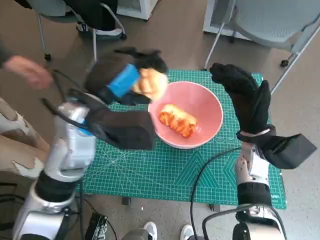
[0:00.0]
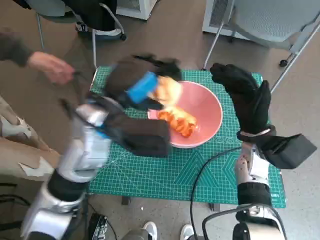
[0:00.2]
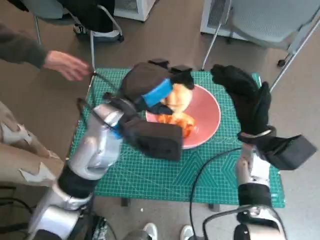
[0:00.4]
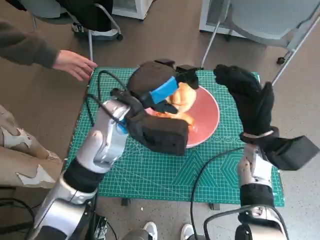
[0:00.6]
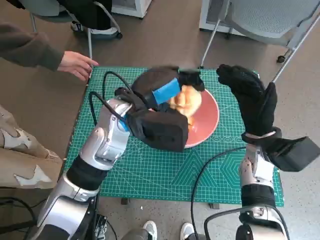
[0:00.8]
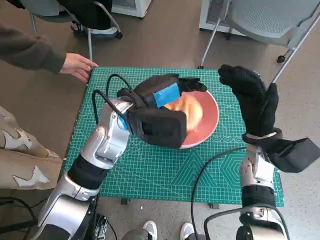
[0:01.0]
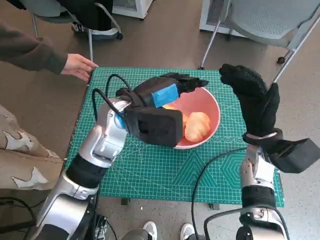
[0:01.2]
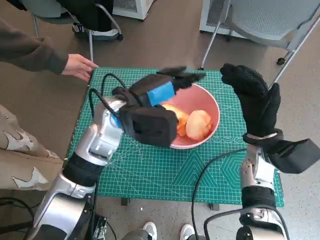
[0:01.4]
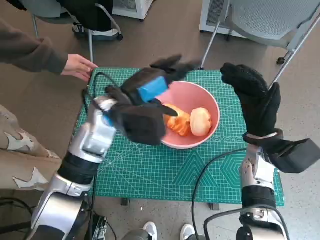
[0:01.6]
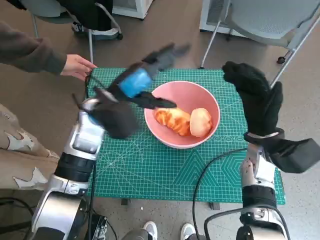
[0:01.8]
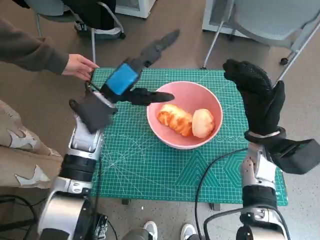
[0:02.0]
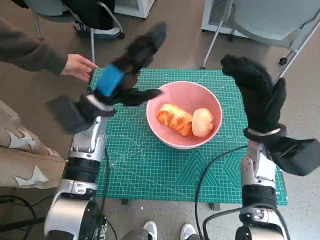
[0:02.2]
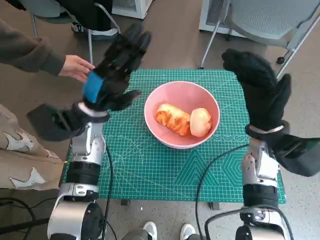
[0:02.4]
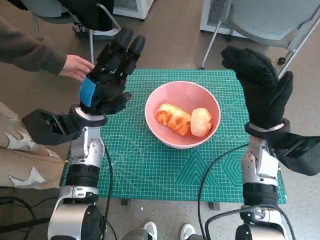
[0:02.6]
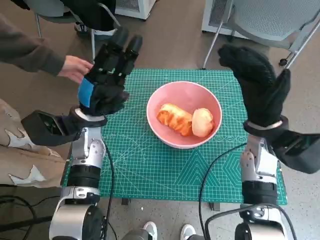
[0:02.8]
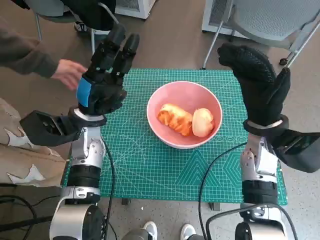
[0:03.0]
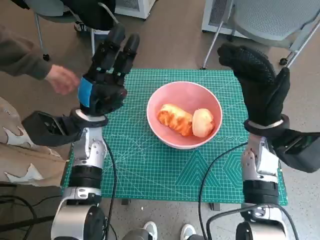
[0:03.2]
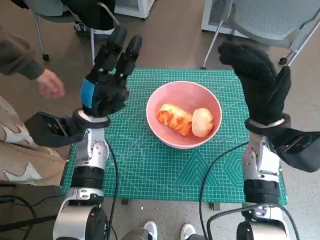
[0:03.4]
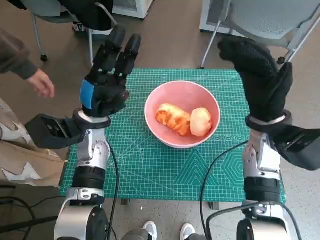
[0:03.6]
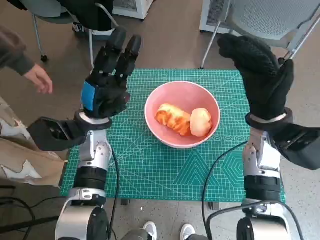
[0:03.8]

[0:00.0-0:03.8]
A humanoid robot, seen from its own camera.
0:00.0 to 0:01.2: The left hand moves roughly 5 cm.
0:01.2 to 0:02.6: The left hand goes approximately 10 cm to the left and downward.

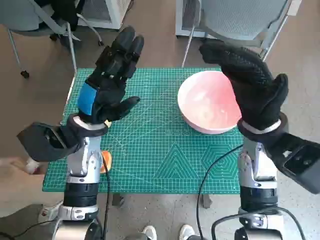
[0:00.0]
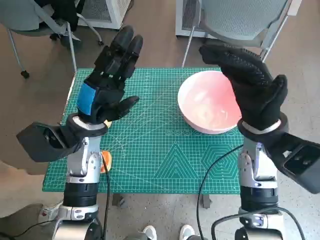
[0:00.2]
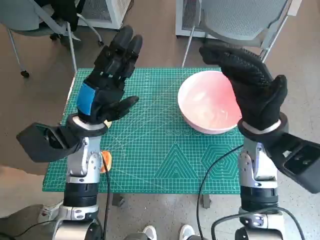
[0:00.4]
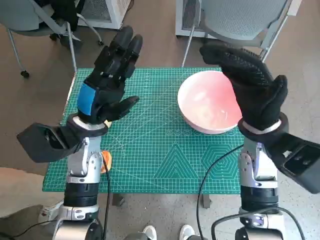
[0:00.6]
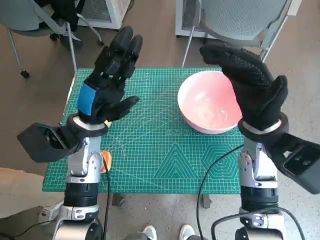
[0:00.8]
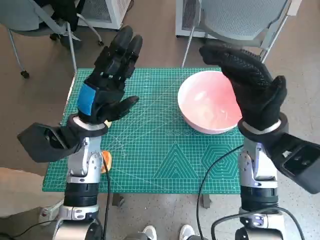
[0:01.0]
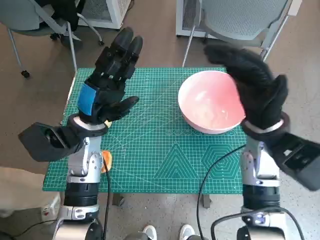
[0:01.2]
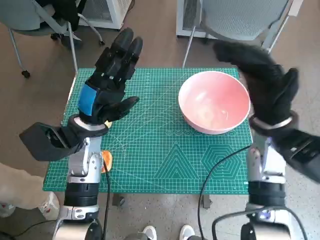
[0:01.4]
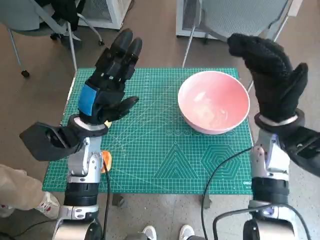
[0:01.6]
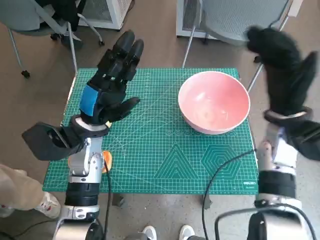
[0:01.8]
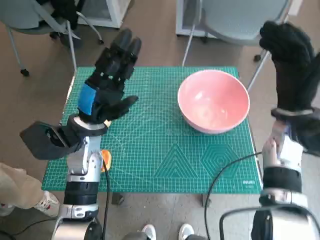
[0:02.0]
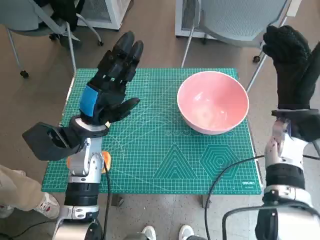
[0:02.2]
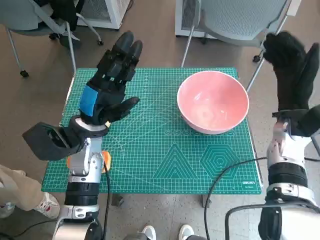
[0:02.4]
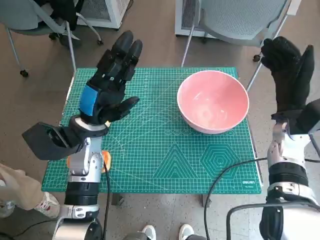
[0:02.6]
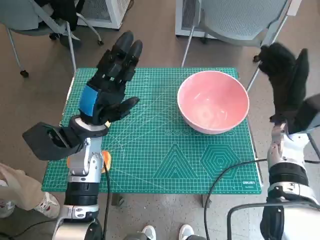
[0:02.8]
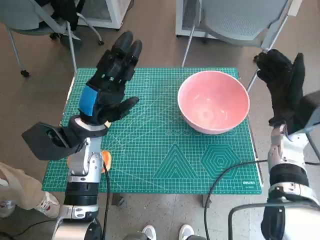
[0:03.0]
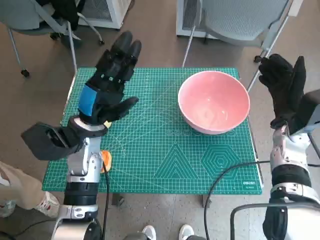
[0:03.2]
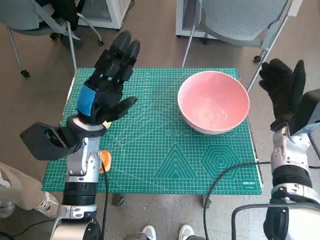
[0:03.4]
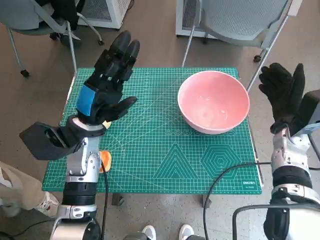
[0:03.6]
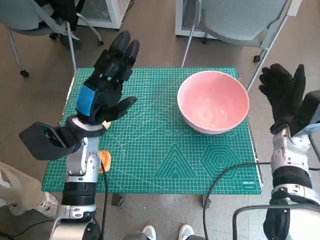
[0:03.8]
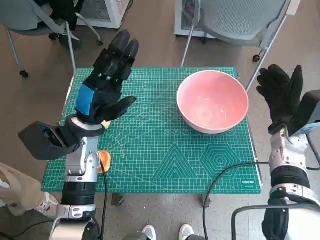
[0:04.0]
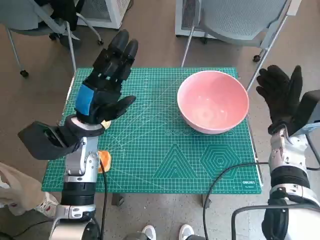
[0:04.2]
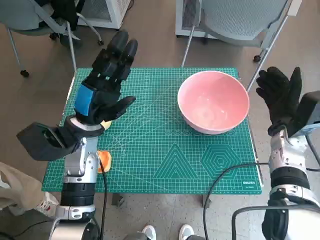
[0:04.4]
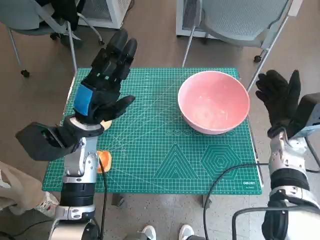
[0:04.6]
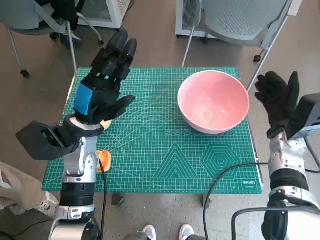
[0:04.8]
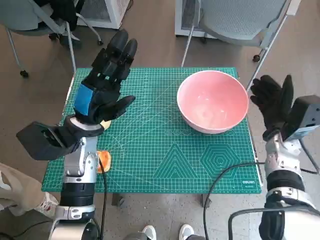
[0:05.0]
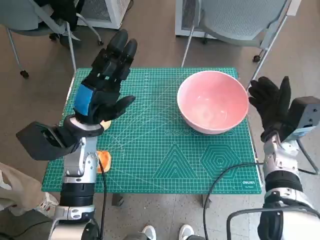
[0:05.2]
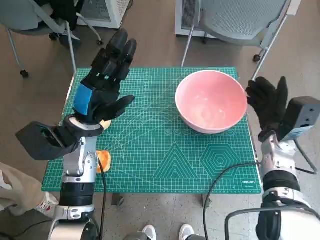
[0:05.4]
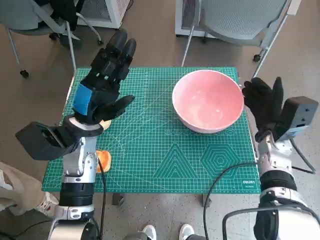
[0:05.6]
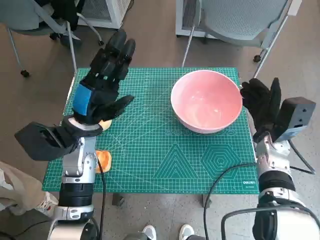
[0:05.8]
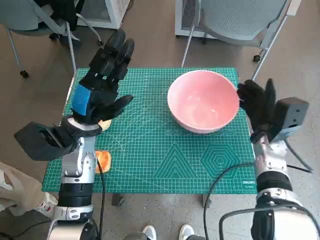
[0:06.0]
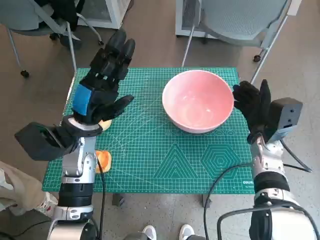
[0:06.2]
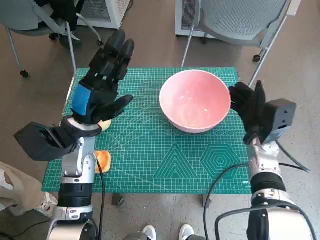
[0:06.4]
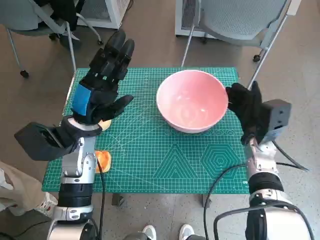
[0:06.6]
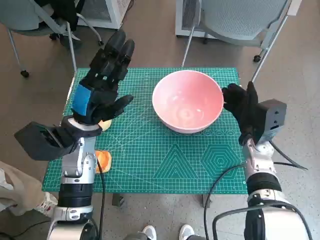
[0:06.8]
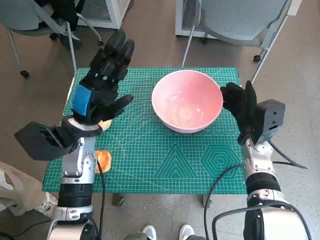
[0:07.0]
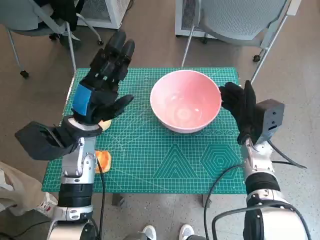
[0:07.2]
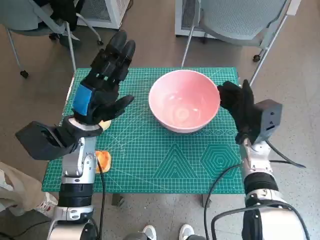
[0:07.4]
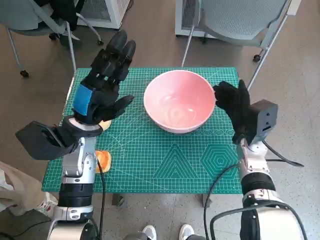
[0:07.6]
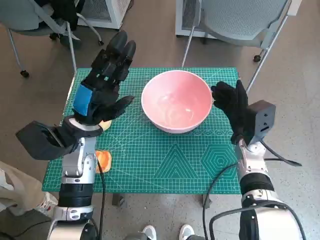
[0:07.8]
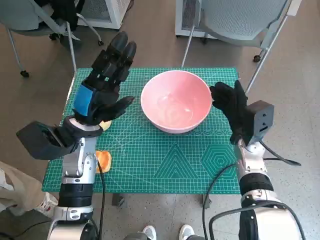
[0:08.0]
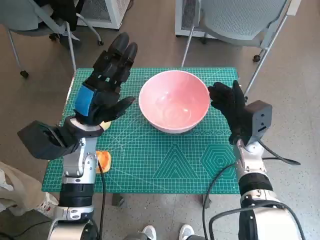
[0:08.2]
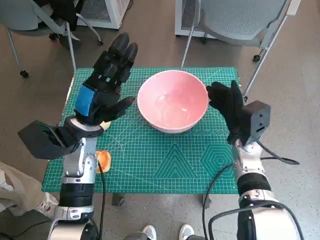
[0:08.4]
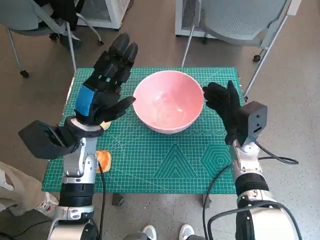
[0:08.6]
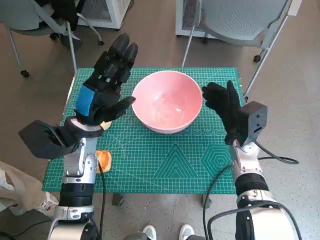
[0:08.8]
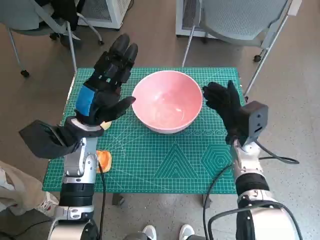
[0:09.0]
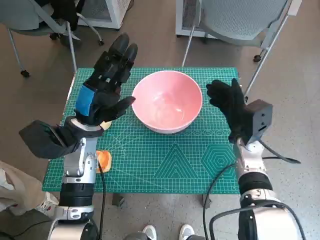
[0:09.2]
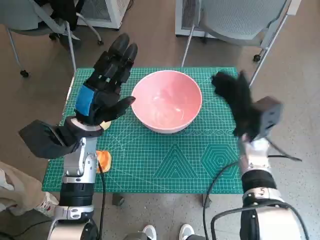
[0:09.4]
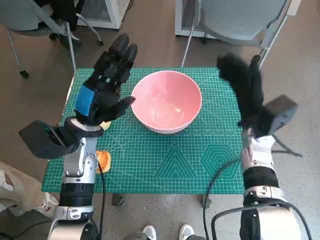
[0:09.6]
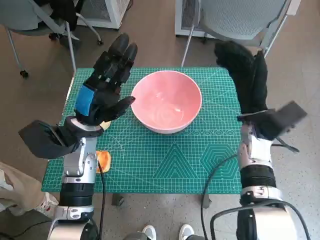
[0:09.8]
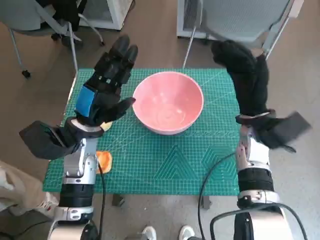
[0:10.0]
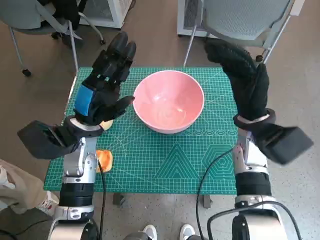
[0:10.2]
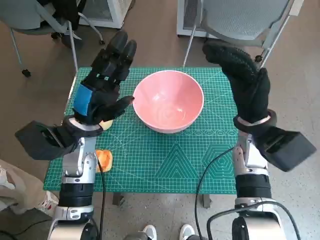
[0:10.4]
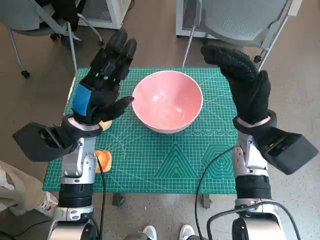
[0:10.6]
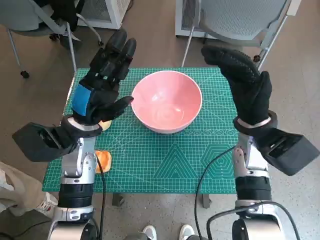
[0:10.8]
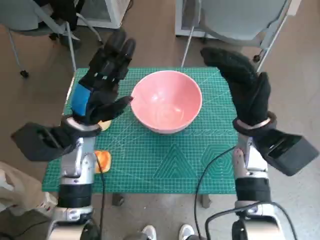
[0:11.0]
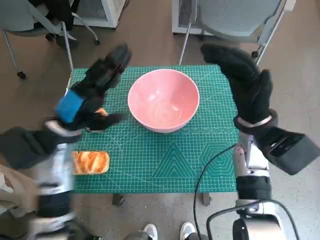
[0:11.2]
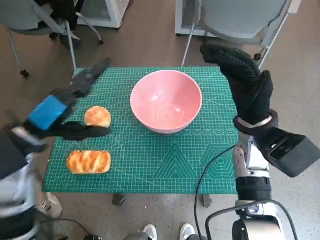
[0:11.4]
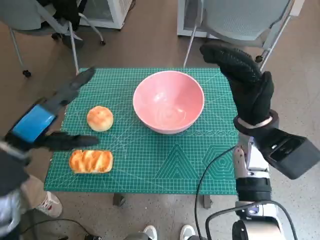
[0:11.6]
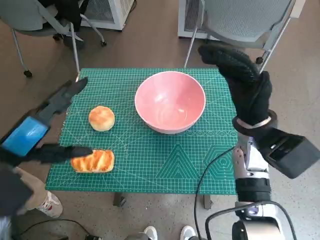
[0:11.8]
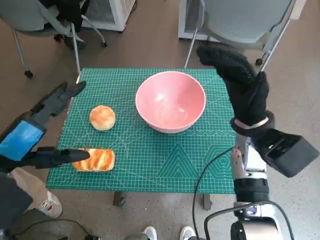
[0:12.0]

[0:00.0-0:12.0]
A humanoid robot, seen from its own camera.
Step, 0:00.0 to 0:09.2: Move the pink bowl to the center of table with right hand.
0:01.6 to 0:03.0: The right hand is displaced to the right and downward by some 5 cm.
0:03.0 to 0:04.4: The hands move only a little.
0:04.4 to 0:06.0: The hands move only a little.
0:06.0 to 0:09.0: The hands make only small movements.
0:09.0 to 0:10.4: The right hand is displaced upward by some 10 cm.
0:10.4 to 0:12.0: The left hand travels backward, upward and to the left by roughly 15 cm.

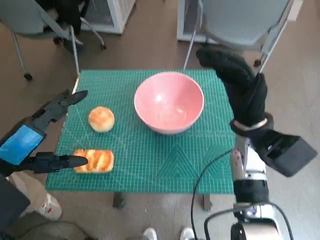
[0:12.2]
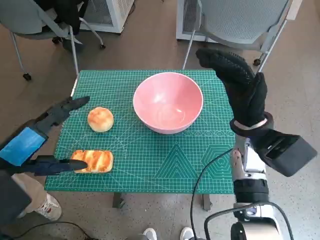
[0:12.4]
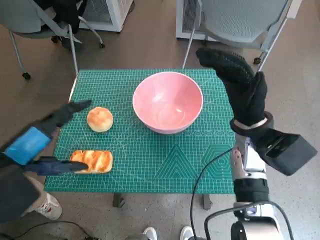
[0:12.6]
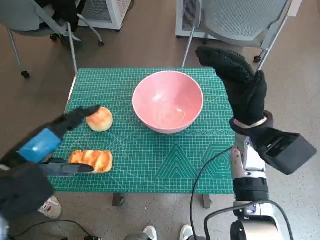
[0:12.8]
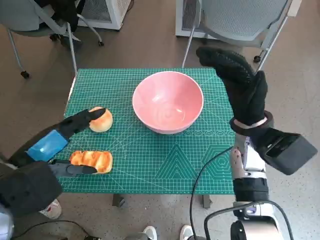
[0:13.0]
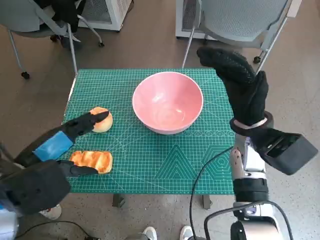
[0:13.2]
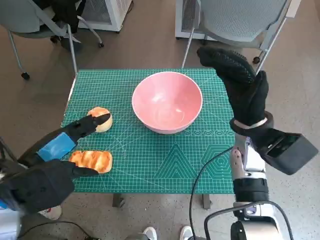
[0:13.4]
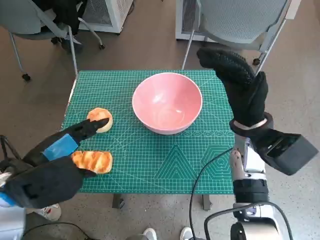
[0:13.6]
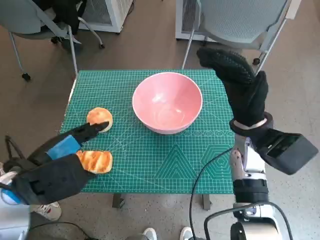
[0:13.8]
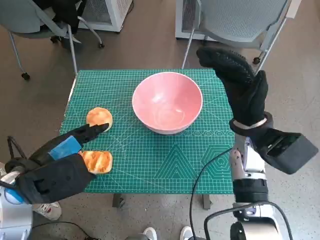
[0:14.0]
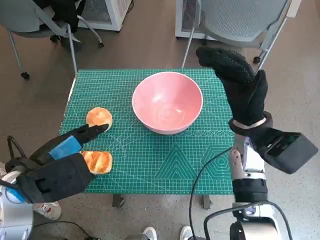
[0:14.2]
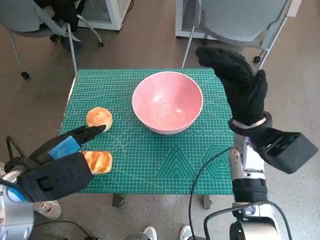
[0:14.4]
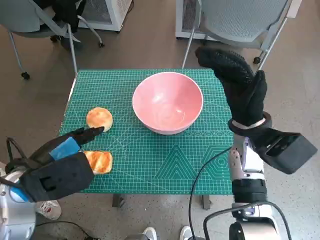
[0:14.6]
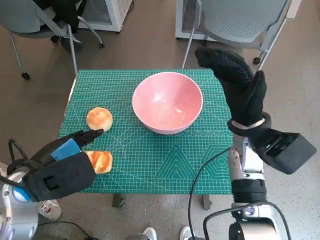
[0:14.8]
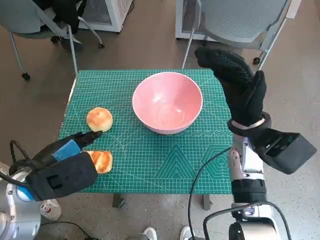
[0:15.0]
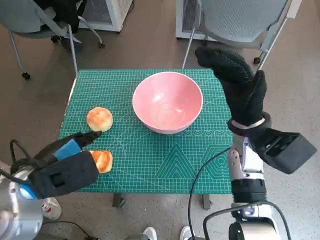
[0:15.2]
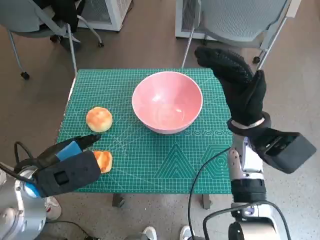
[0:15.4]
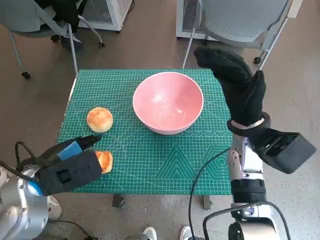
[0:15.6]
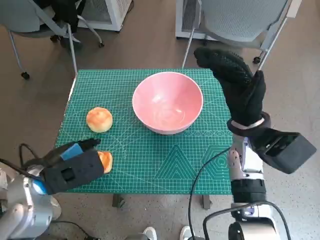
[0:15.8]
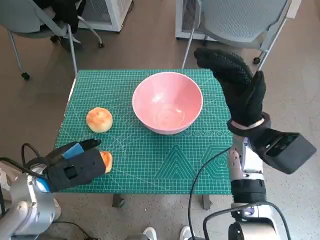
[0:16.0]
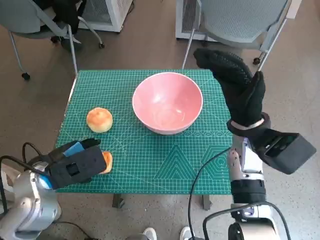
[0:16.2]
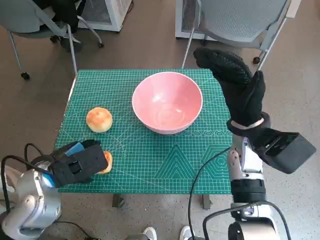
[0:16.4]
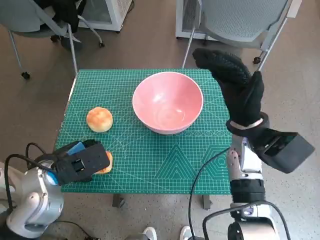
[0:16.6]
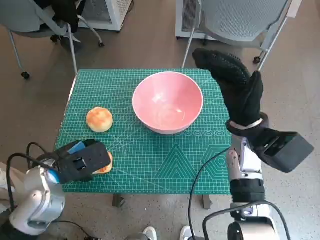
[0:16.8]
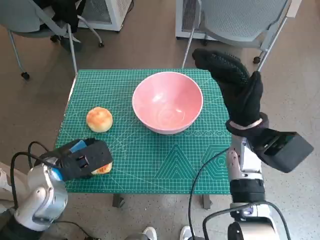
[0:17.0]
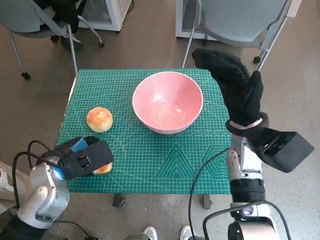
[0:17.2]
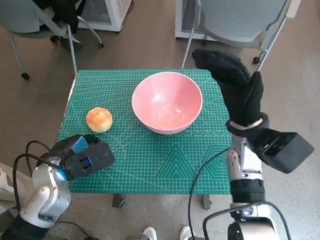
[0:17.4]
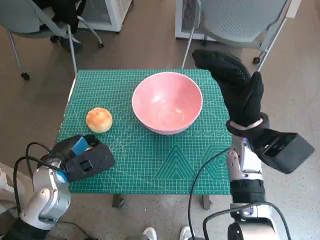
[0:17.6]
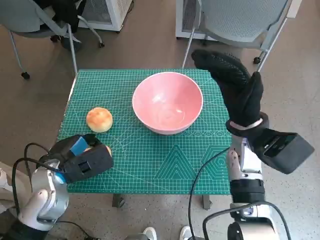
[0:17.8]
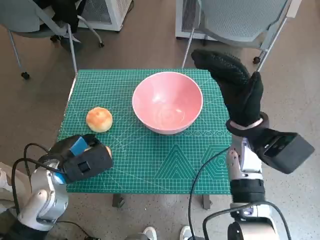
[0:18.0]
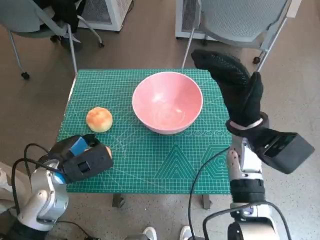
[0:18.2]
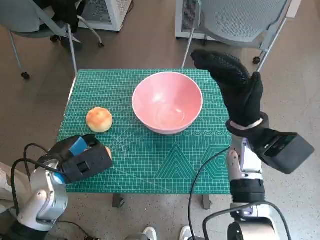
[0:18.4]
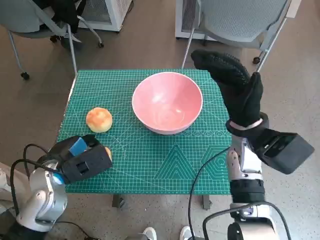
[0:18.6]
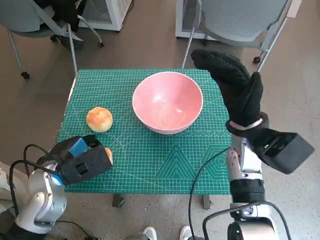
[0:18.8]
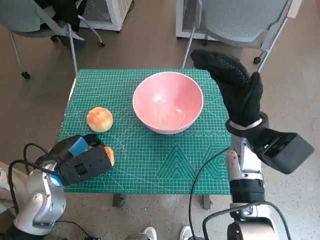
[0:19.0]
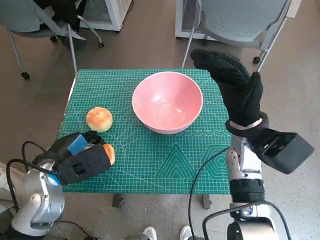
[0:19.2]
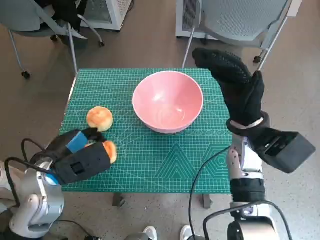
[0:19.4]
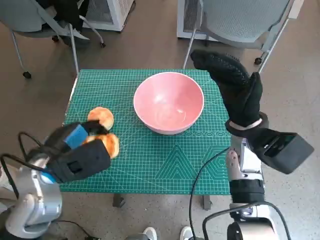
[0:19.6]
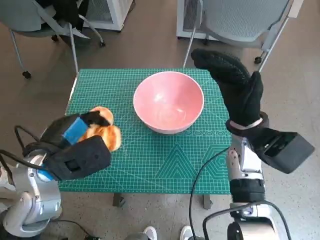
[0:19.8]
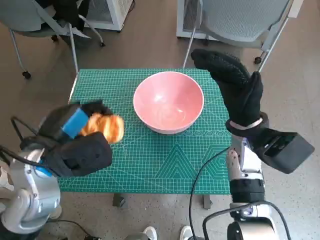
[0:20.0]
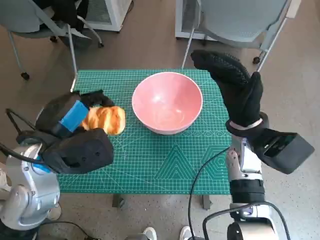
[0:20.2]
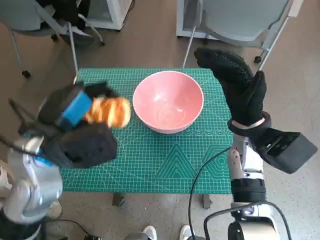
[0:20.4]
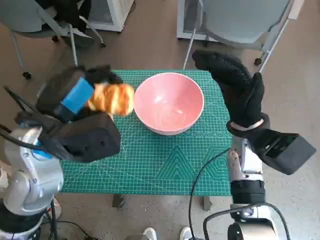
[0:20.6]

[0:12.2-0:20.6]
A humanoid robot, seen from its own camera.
Step, 0:12.2 to 0:17.8: Grasp the long bread with left hand.
0:13.6 to 0:15.0: The hands make only small movements.
0:15.0 to 0:16.4: The hands stay close to where they were, moving slightly.
0:16.4 to 0:19.2: The hands move only a little.
0:19.2 to 0:20.6: The left hand moves upward, about 10 cm.
